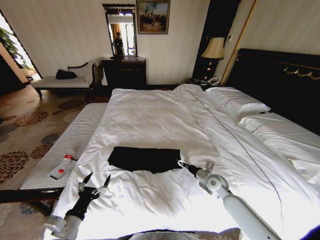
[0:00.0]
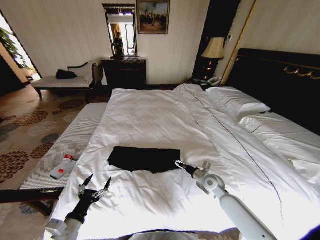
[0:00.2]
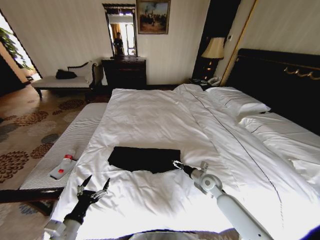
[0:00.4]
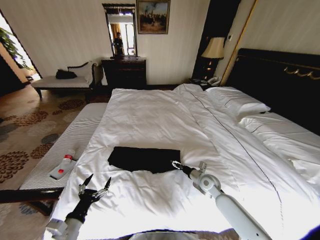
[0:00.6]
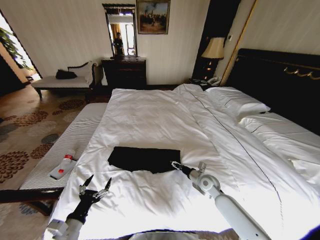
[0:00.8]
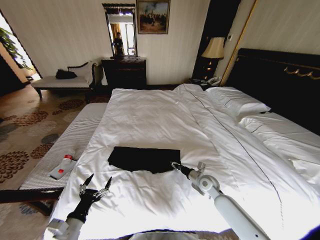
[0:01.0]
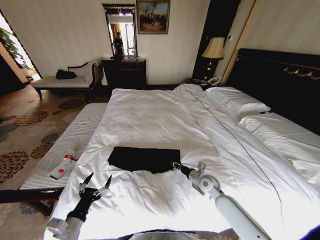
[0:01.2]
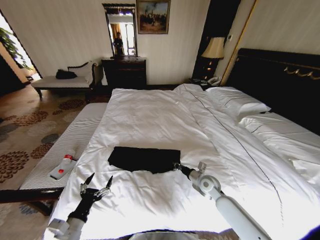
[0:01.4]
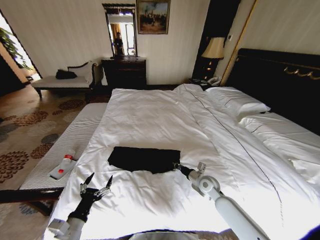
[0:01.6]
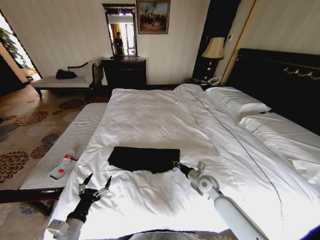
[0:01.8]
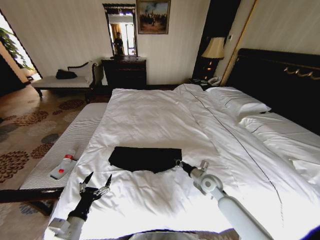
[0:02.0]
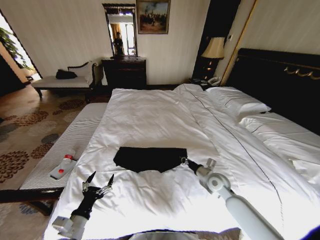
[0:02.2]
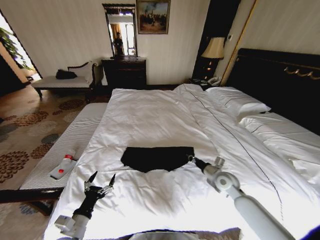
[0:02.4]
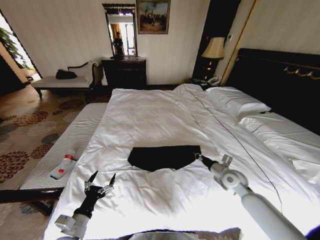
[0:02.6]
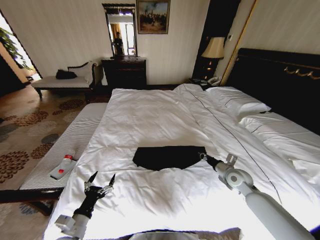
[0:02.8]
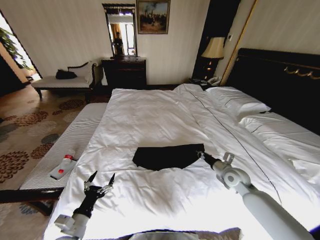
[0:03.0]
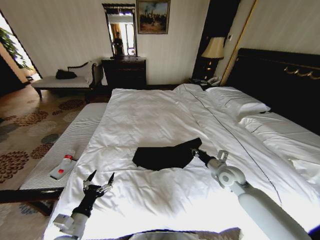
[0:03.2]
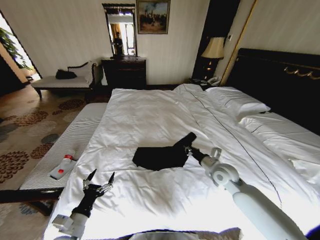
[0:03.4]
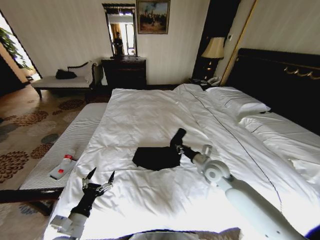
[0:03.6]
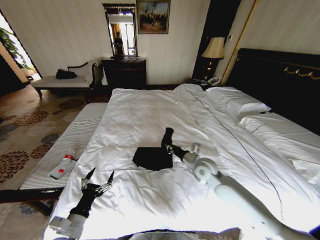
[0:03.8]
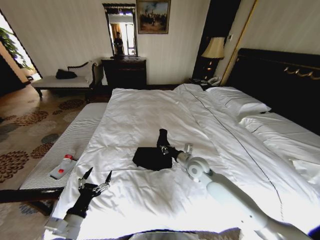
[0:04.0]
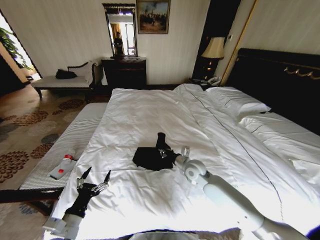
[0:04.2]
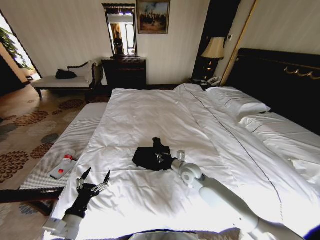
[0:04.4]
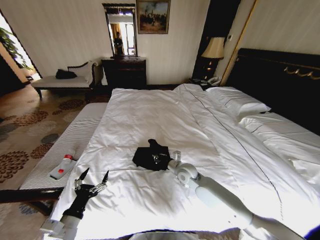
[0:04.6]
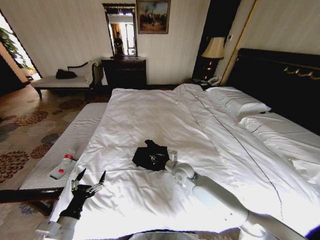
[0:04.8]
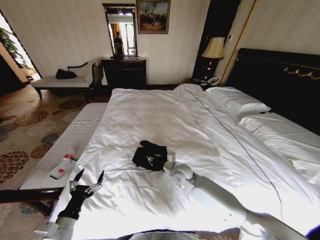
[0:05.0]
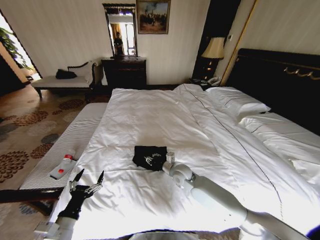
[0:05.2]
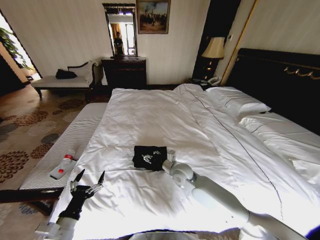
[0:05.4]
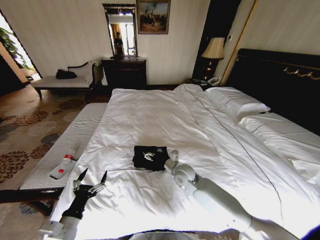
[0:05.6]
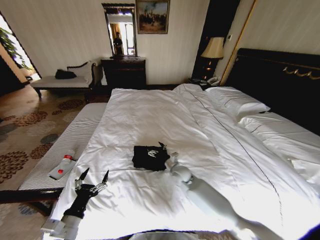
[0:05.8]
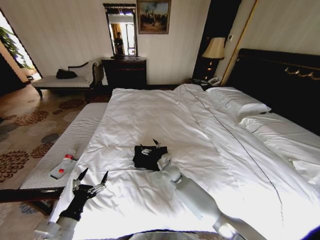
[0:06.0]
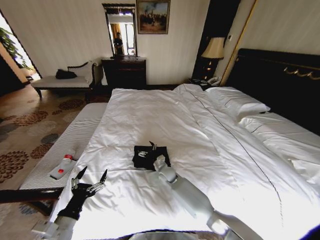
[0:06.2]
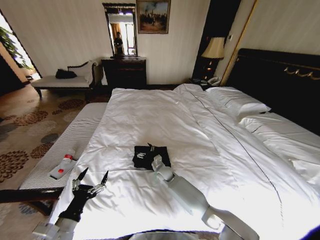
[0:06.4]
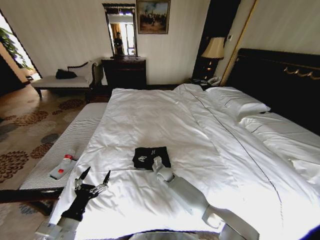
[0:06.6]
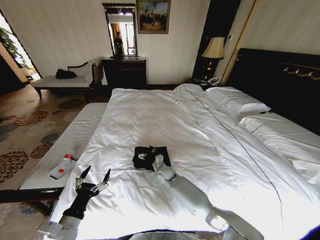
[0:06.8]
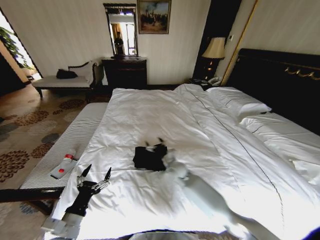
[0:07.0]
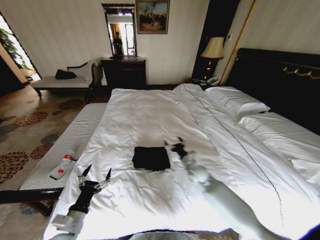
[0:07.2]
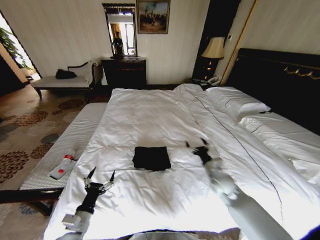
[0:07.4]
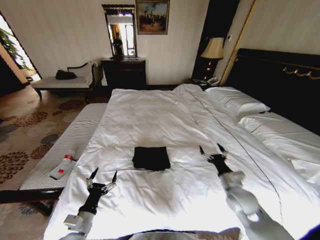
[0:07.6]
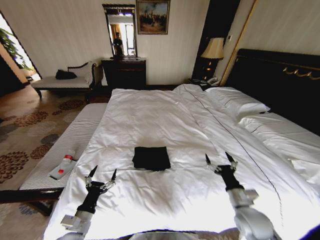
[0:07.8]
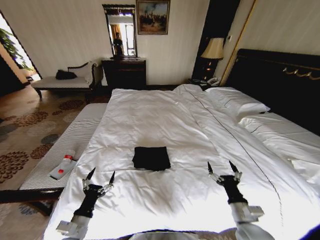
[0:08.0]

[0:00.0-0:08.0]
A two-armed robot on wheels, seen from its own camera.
Task of the whole recording: Fold the clothes on the bed.
0.0 to 1.6 s: The right gripper closes up.
1.6 to 3.2 s: The right gripper is displaced upward and to the right by some 10 cm.
3.2 to 4.8 s: The right gripper shifts about 20 cm to the left.
4.8 to 6.4 s: The right gripper travels downward and to the left by some 15 cm, and opens.
6.4 to 8.0 s: The left gripper is displaced downward by roughly 5 cm; the right gripper heads backward and to the right, covering approximately 40 cm.

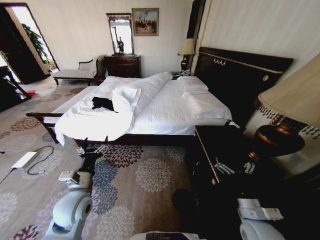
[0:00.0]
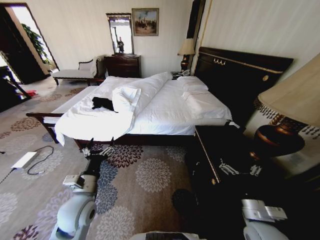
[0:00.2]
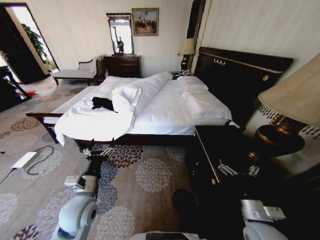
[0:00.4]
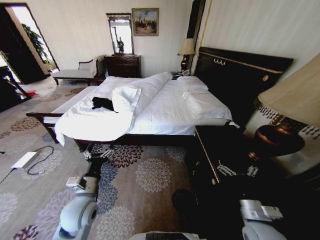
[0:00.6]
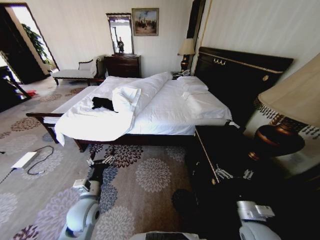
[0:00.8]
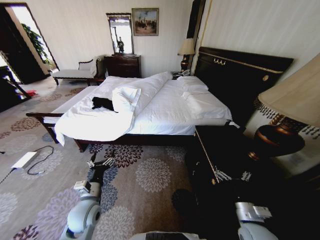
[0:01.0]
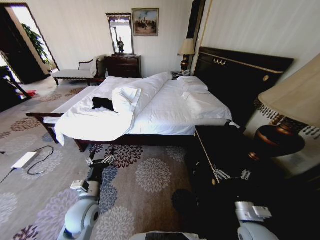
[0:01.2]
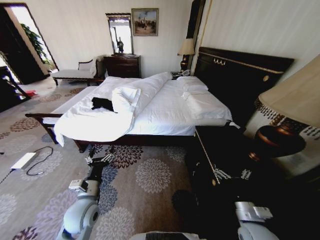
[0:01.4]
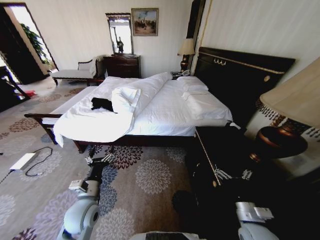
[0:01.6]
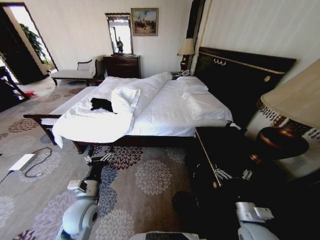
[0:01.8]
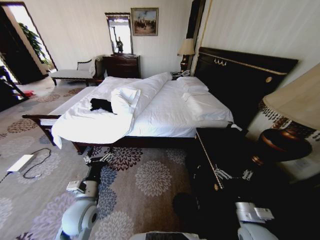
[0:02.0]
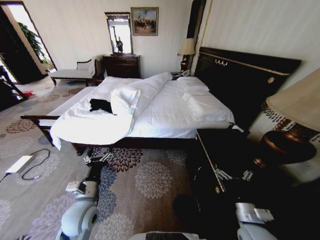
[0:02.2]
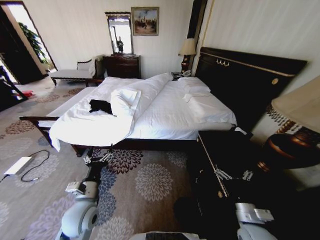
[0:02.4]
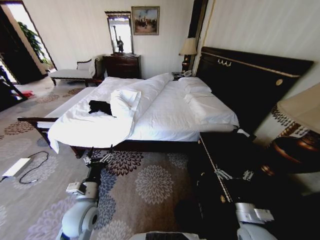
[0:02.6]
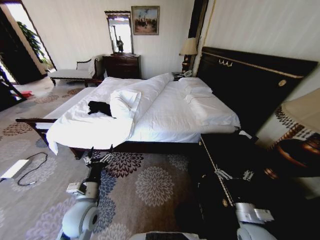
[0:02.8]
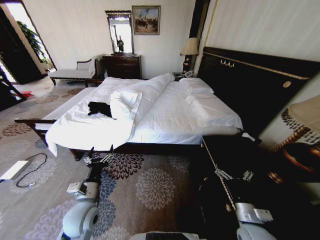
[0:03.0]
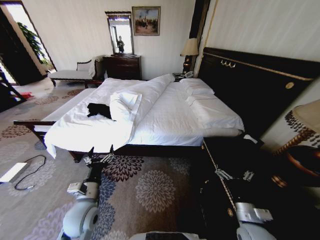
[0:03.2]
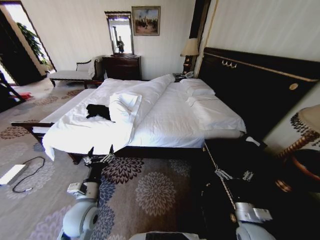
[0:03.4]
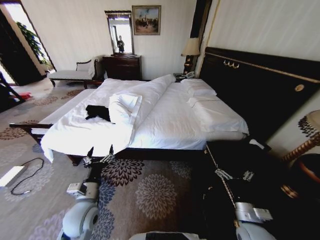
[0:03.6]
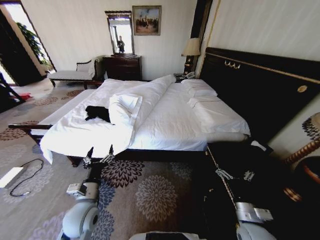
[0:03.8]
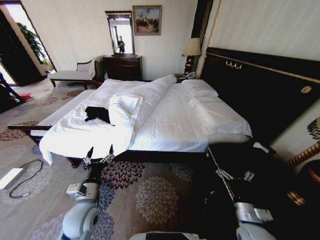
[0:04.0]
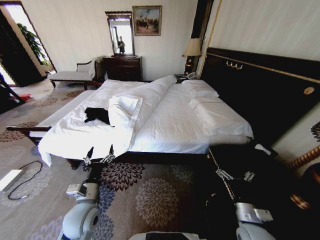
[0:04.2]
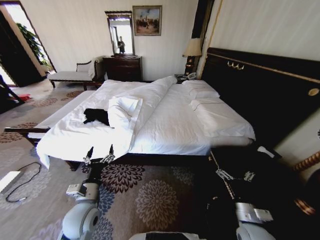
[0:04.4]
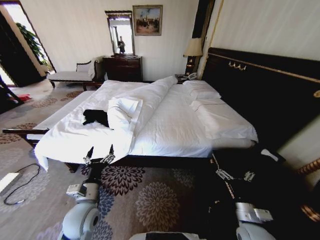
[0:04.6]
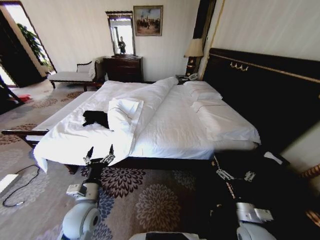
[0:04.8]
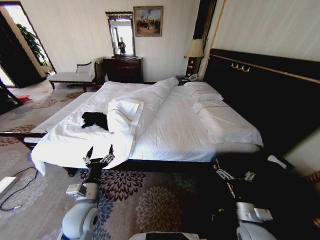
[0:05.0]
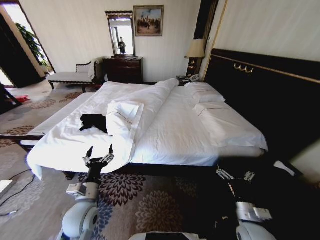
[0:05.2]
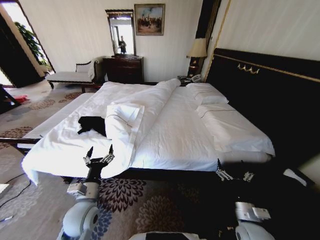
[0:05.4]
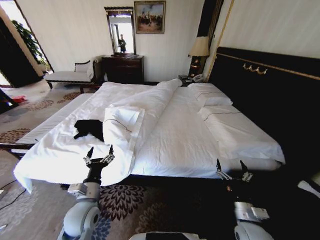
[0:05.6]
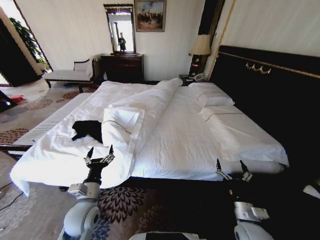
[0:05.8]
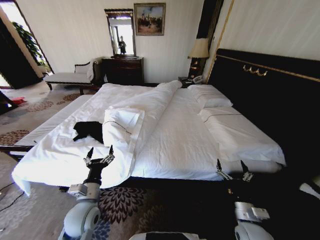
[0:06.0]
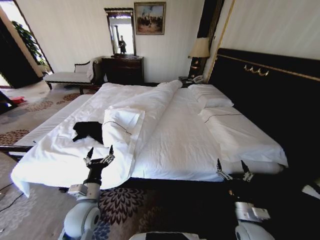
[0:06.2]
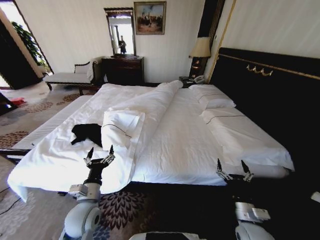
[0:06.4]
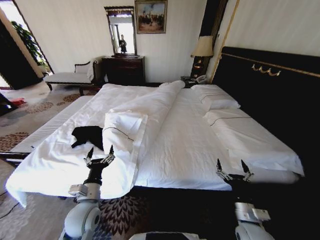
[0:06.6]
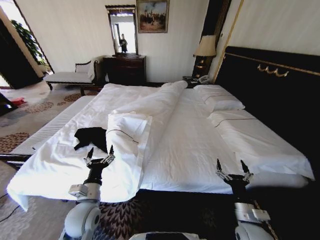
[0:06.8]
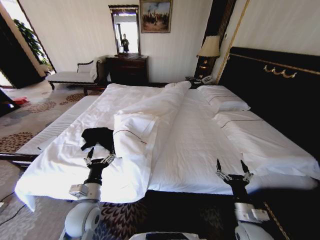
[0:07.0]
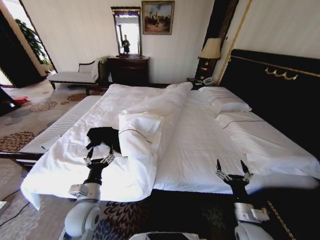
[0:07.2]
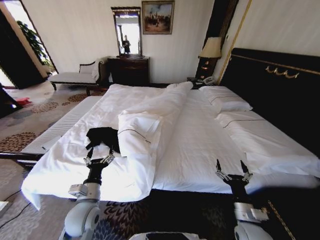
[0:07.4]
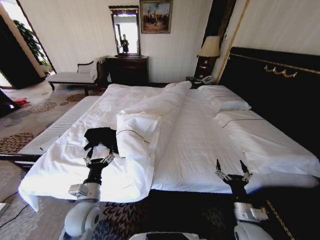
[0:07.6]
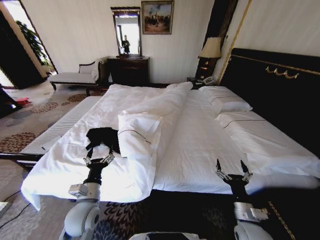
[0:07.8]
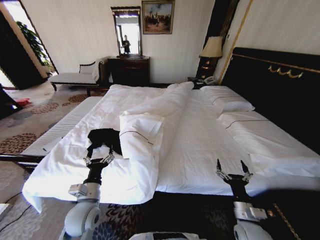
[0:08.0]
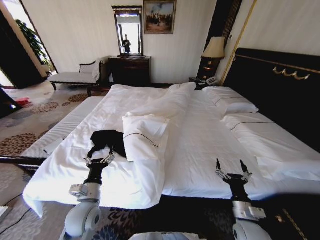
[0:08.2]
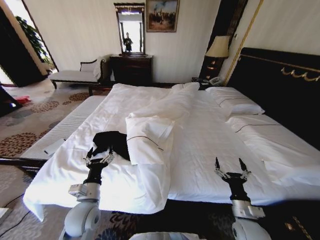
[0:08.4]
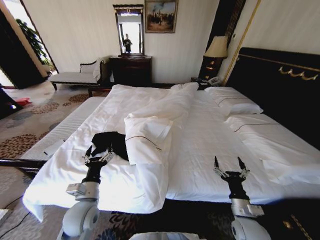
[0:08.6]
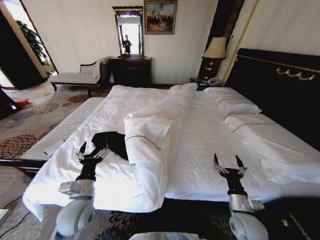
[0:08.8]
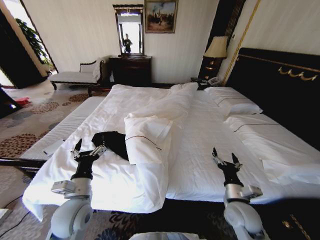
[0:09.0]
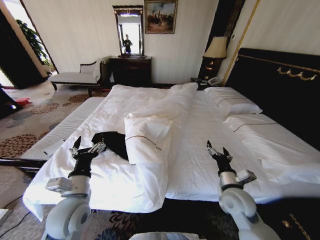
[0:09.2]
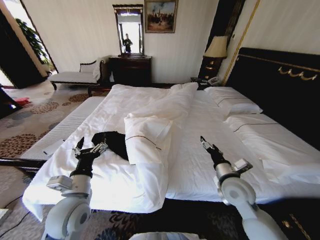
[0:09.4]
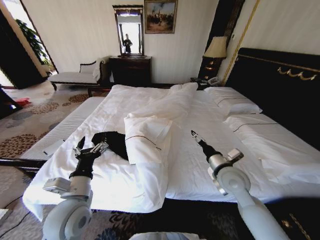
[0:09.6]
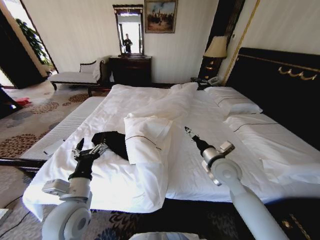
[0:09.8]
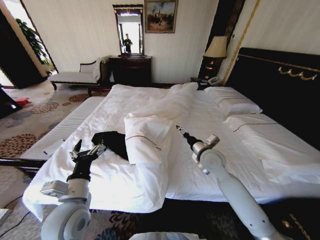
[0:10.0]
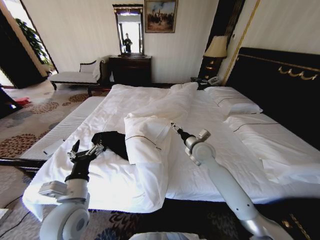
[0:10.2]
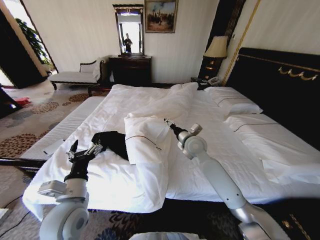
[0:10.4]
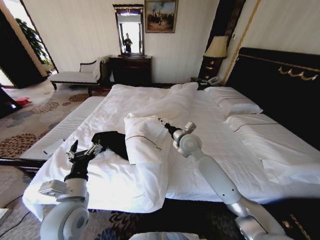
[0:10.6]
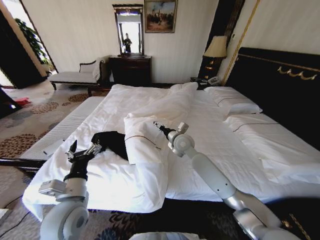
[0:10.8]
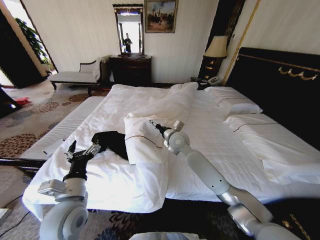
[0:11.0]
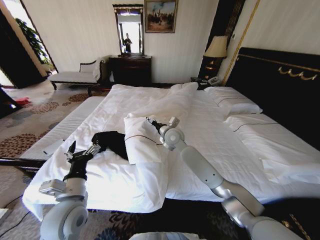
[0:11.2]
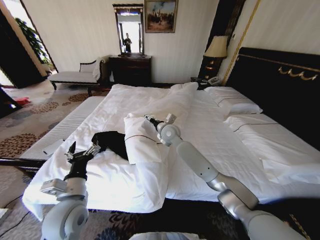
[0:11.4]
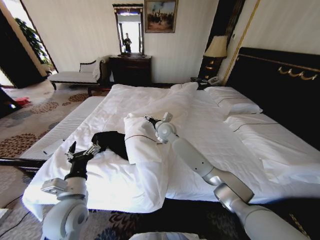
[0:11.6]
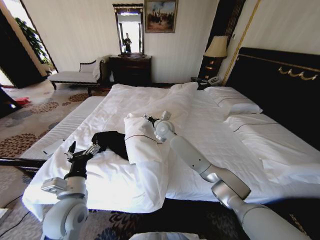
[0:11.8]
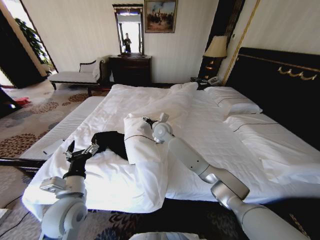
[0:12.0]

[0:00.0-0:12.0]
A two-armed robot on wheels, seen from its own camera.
Task of the whole recording: Fold the clothes on the bed.
7.6 to 9.0 s: The left gripper moves upward, about 5 cm. The right gripper moves forward, roughly 5 cm.
9.0 to 10.4 s: The right gripper shifts about 30 cm forward, to the left and upward.
10.4 to 12.0 s: The right gripper shifts about 15 cm to the left and forward.

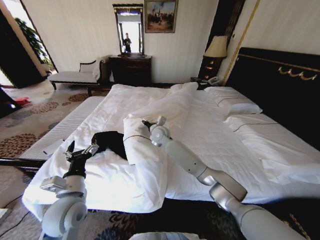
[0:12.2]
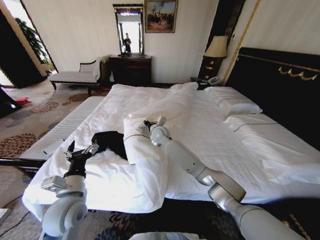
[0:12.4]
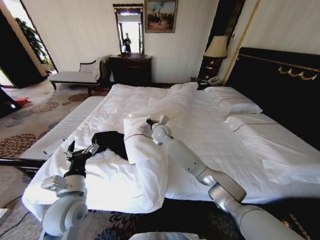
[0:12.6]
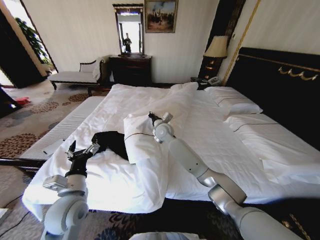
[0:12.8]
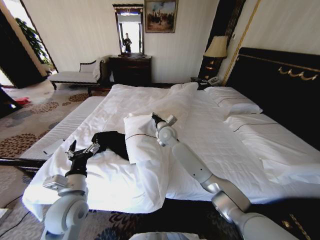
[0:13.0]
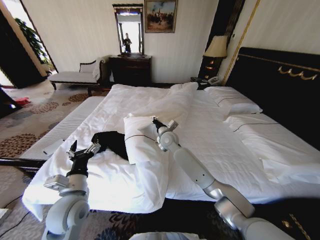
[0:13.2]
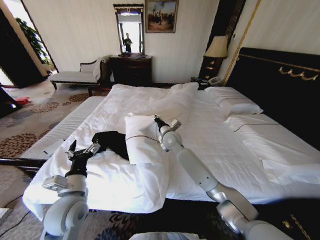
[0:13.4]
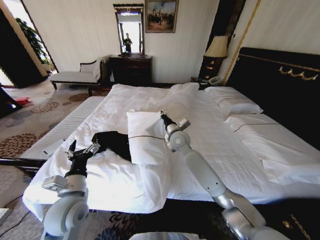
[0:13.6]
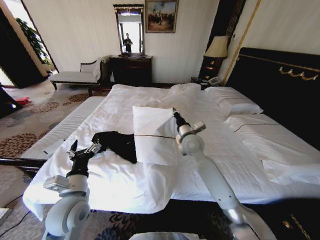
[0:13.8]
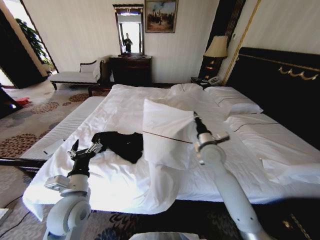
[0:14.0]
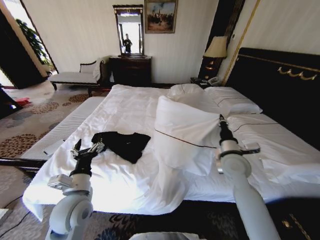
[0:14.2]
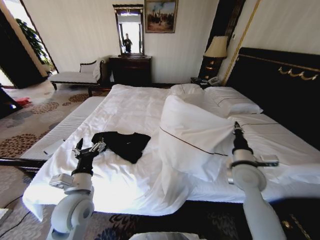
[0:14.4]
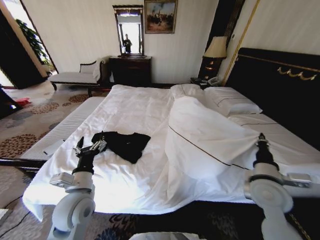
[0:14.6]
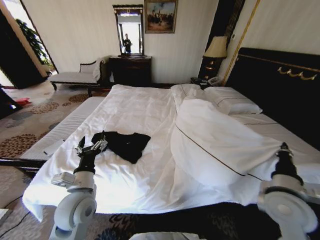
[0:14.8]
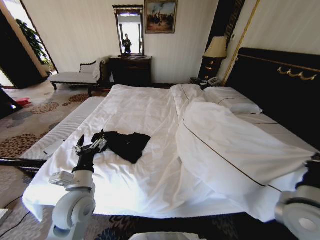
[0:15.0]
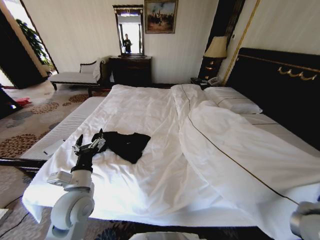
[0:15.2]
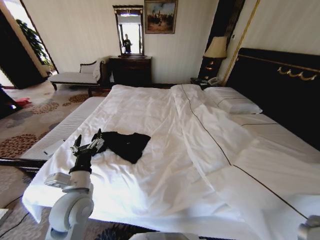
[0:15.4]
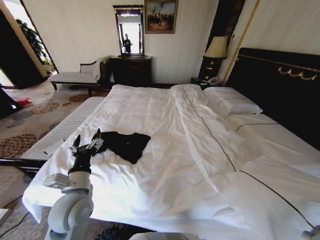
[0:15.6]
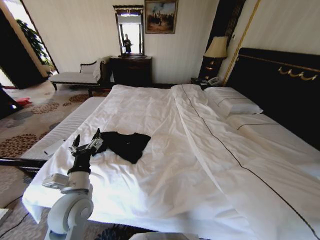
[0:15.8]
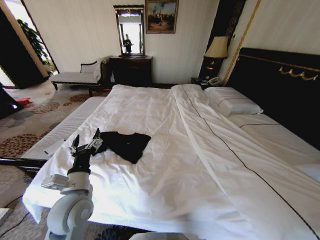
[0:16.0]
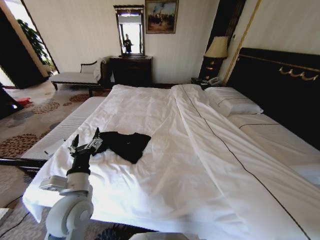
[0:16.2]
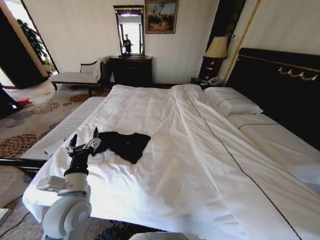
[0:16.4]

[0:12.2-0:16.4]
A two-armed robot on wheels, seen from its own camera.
Task of the whole recording: Fold the clothes on the bed.
12.2 to 13.6 s: The right gripper goes about 10 cm to the right and backward, and closes its fingers.
13.6 to 15.0 s: The right gripper shifts some 40 cm backward and to the right.
15.0 to 16.4 s: The right gripper travels backward and downward by approximately 10 cm.
